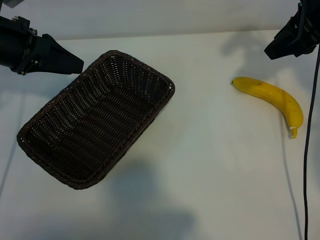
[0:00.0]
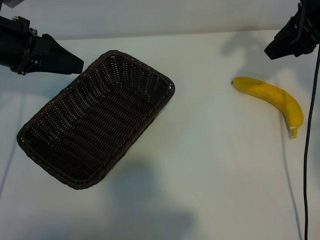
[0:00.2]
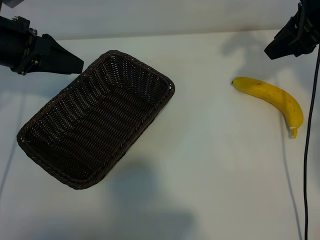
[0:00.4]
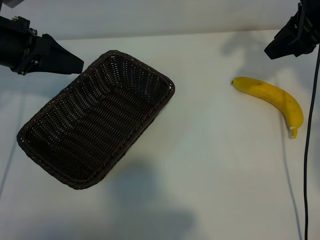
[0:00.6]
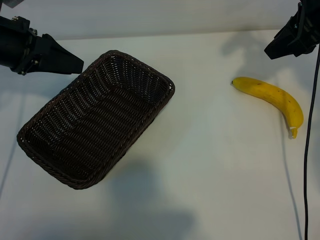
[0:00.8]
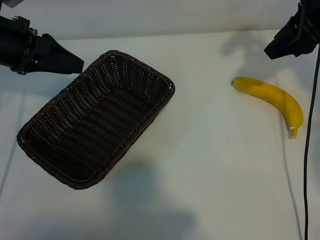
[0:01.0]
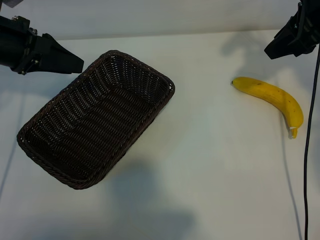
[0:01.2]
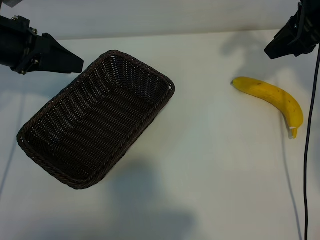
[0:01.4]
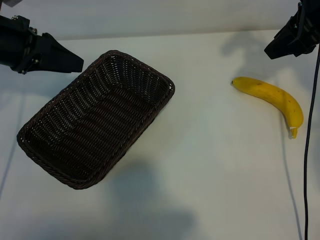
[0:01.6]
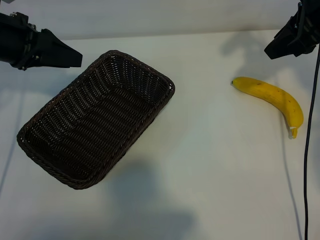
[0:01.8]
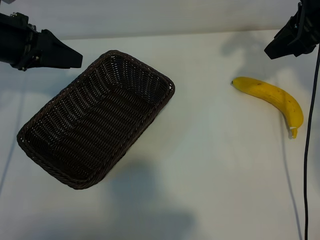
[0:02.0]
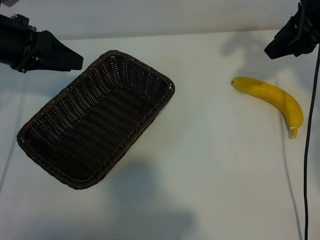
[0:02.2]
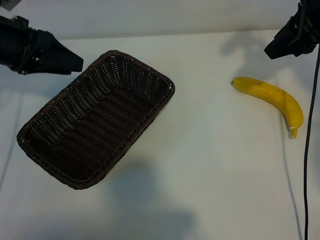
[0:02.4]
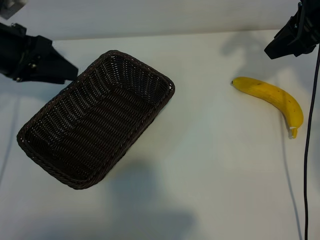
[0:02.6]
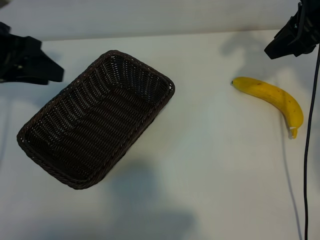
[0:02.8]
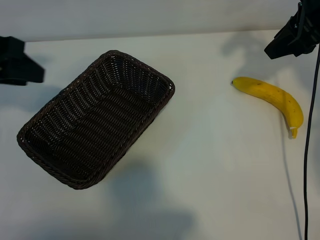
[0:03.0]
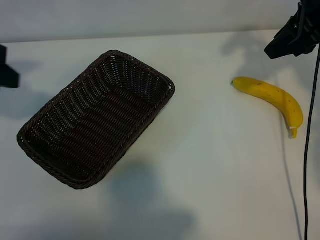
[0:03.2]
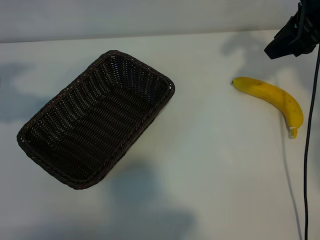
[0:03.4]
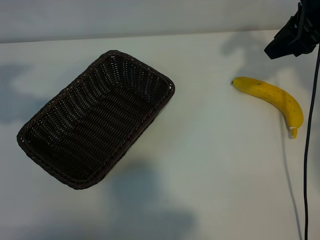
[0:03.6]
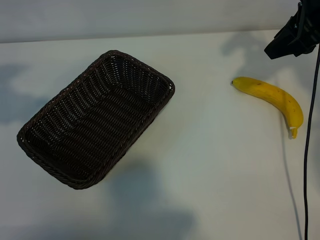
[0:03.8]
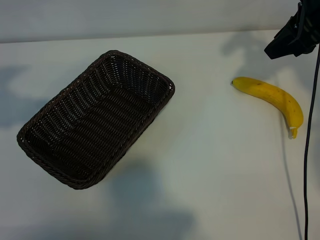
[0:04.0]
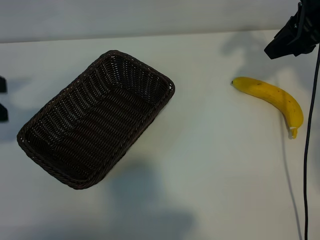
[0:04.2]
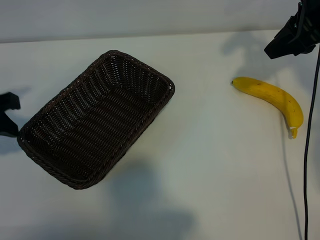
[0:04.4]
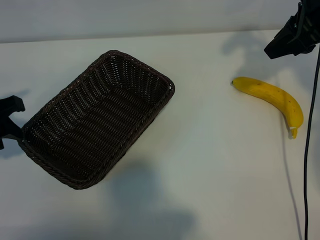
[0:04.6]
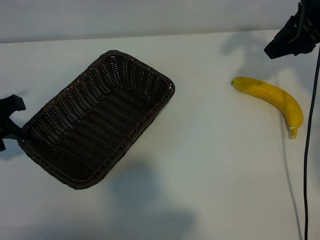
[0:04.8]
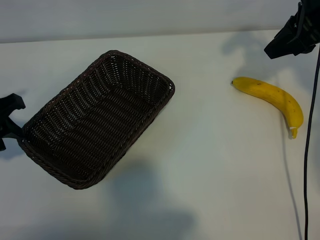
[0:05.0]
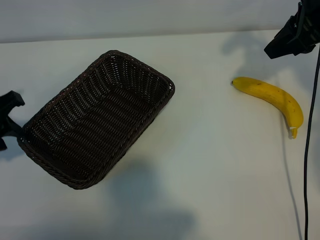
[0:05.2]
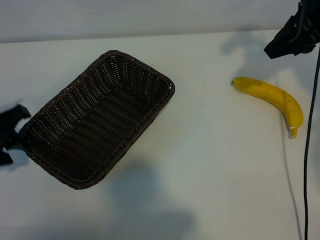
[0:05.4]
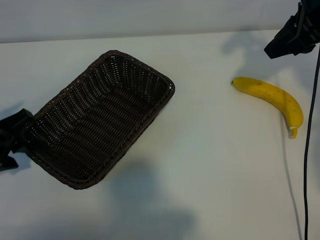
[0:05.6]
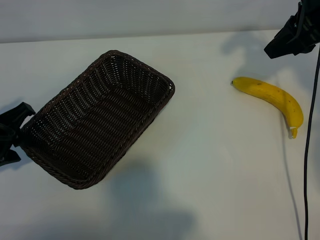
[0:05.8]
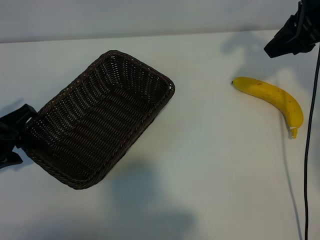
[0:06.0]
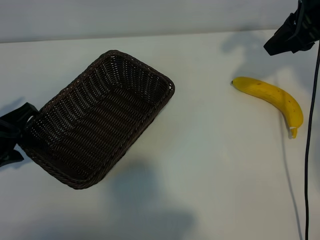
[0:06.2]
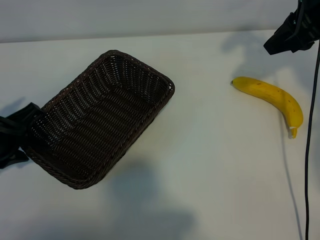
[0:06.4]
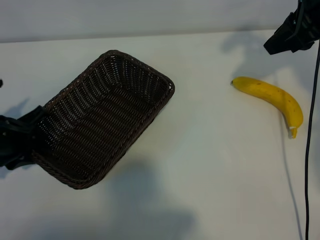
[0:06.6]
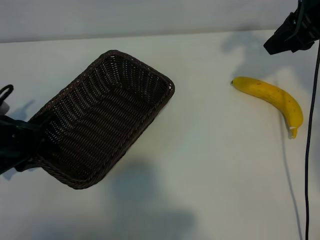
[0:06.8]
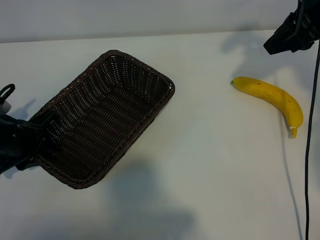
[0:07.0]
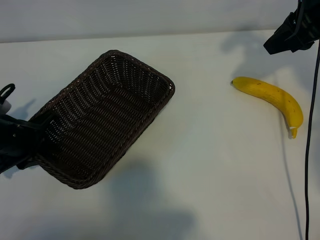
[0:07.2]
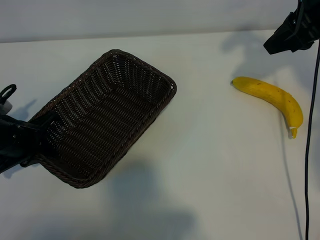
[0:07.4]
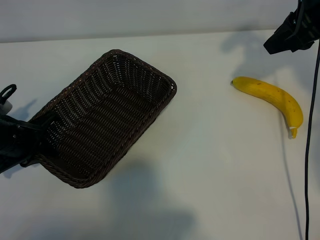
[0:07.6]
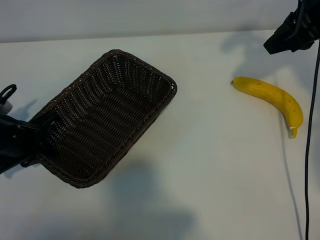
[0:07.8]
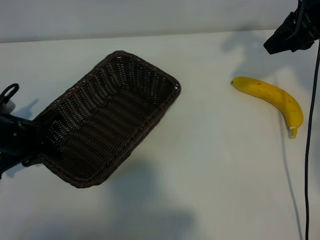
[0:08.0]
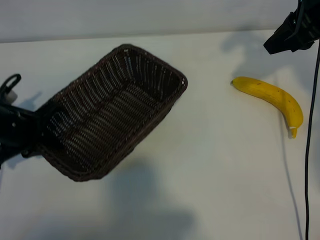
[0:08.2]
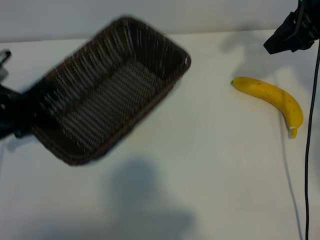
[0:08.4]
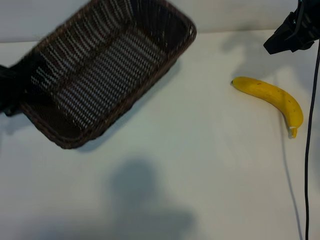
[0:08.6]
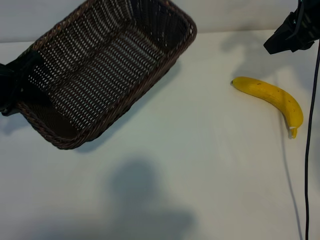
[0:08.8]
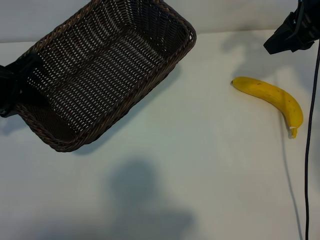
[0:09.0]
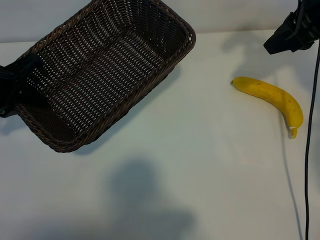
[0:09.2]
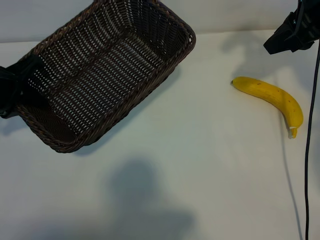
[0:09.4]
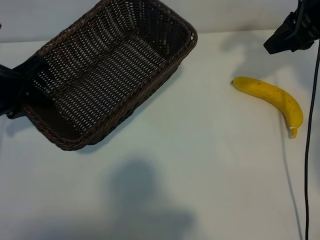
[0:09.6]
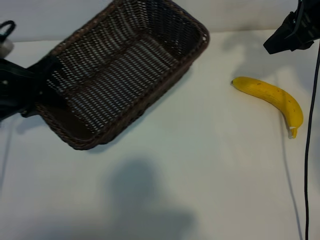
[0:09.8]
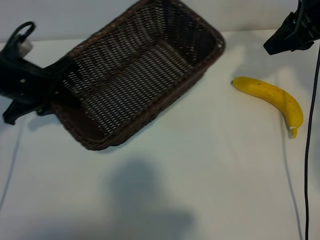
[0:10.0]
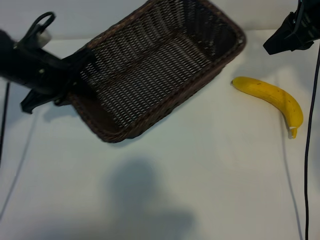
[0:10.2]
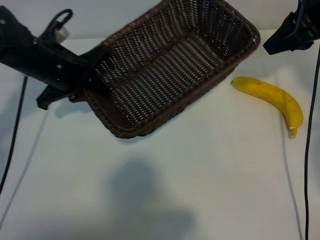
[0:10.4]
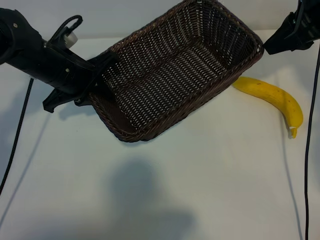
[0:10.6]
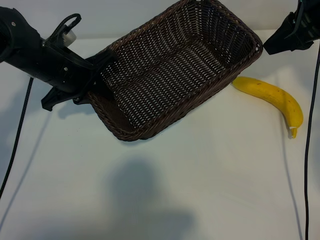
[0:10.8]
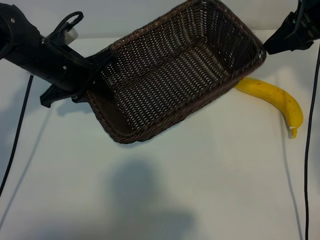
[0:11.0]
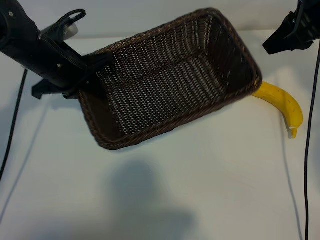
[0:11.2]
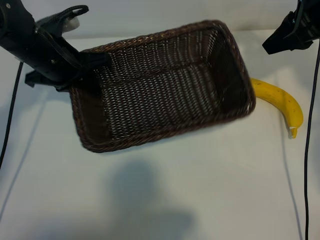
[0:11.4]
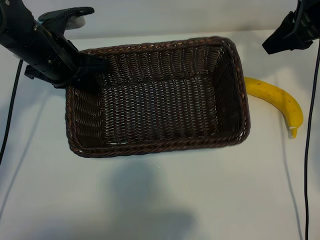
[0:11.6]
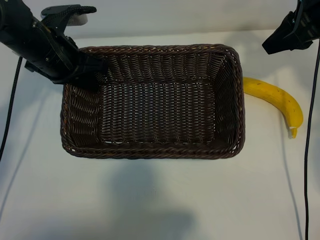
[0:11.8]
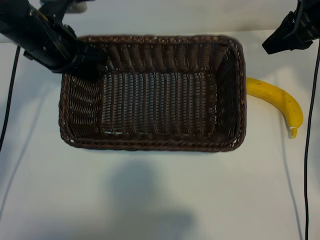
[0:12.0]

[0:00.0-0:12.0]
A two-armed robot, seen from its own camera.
Task of the whole recording: pick up the banana and put it into the basket.
Step, 0:01.4 to 0:07.2: Grasp the basket with the left gripper.

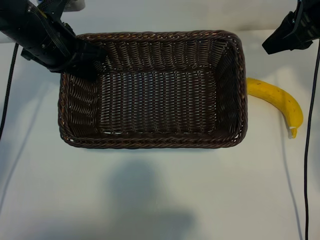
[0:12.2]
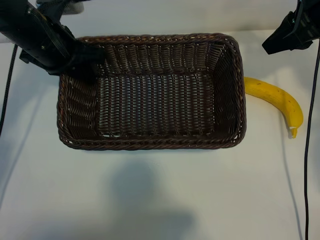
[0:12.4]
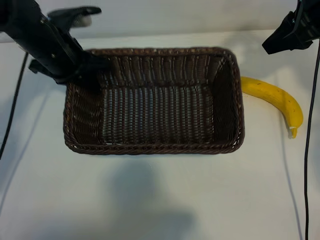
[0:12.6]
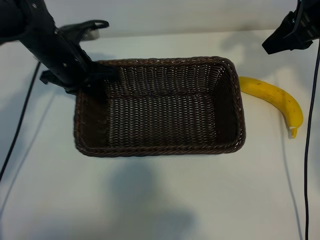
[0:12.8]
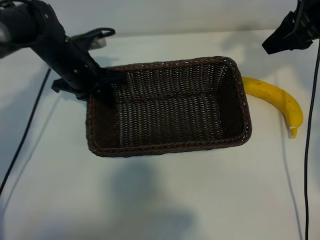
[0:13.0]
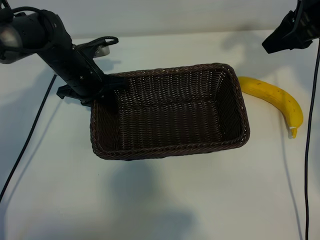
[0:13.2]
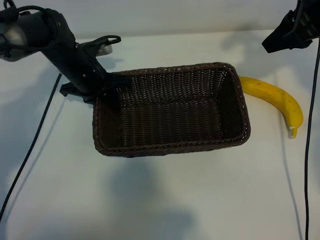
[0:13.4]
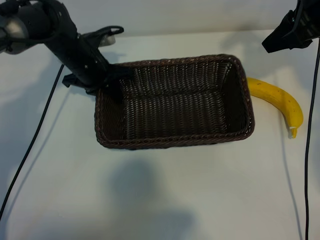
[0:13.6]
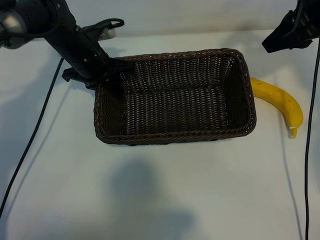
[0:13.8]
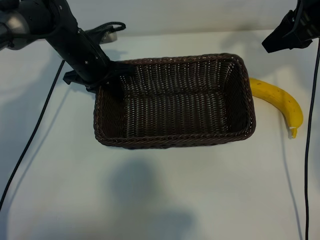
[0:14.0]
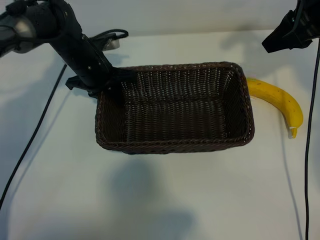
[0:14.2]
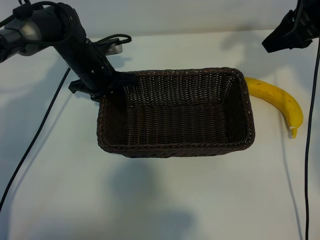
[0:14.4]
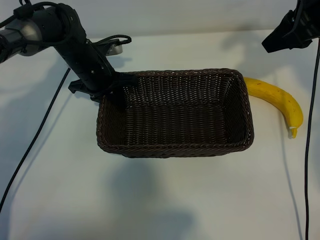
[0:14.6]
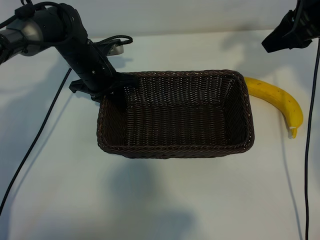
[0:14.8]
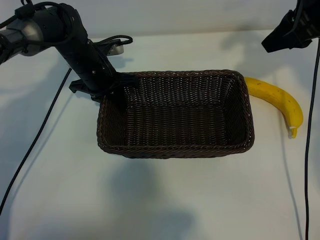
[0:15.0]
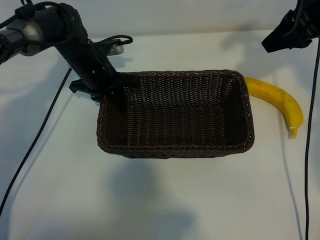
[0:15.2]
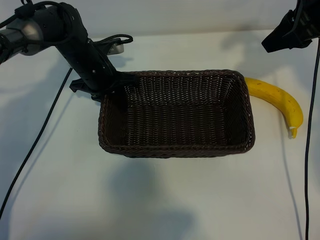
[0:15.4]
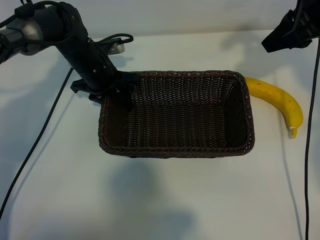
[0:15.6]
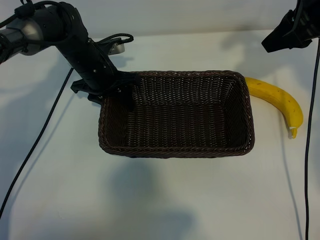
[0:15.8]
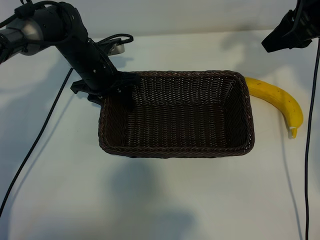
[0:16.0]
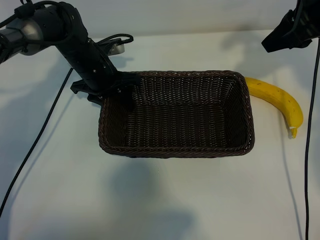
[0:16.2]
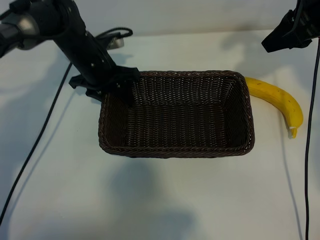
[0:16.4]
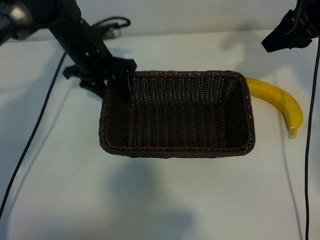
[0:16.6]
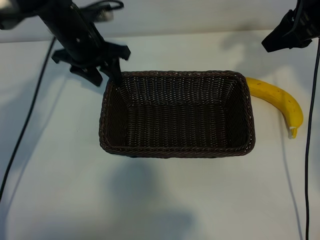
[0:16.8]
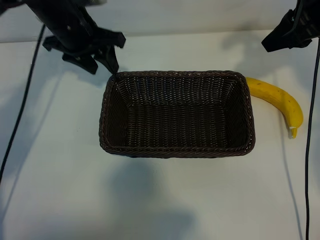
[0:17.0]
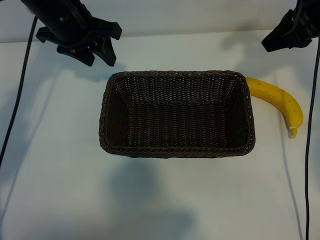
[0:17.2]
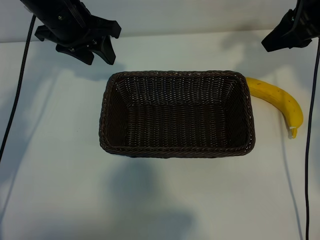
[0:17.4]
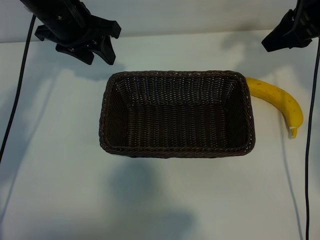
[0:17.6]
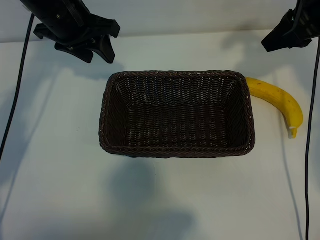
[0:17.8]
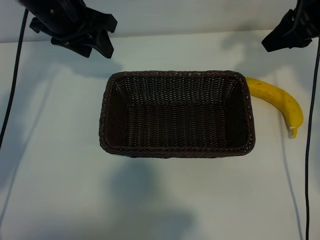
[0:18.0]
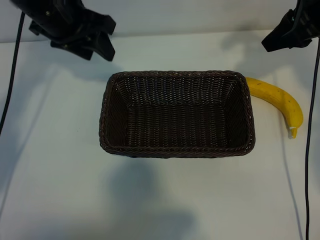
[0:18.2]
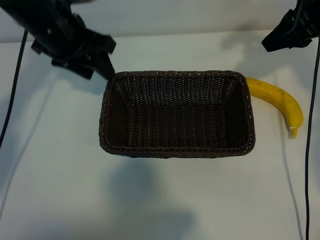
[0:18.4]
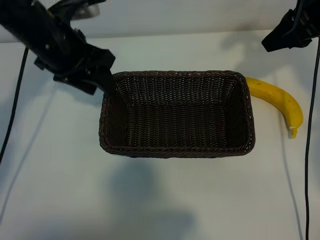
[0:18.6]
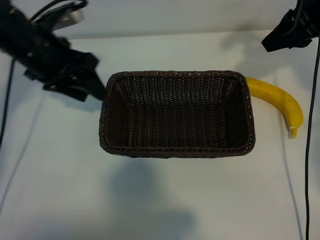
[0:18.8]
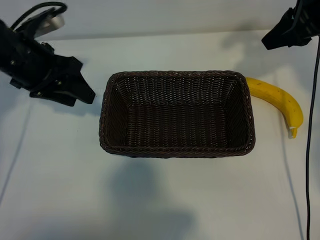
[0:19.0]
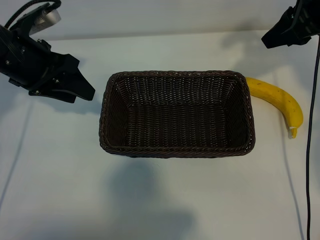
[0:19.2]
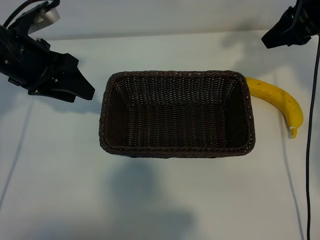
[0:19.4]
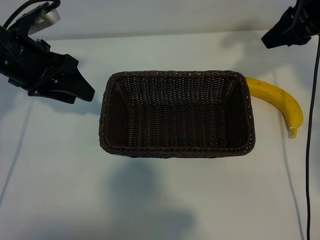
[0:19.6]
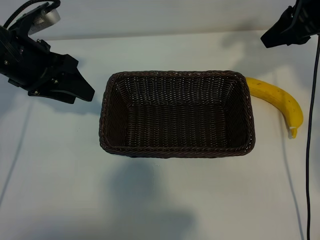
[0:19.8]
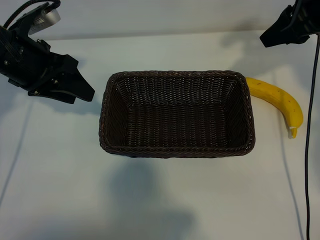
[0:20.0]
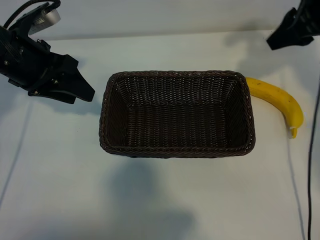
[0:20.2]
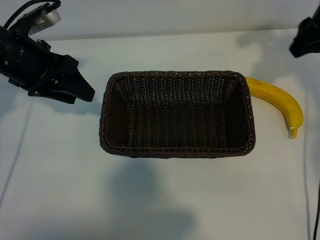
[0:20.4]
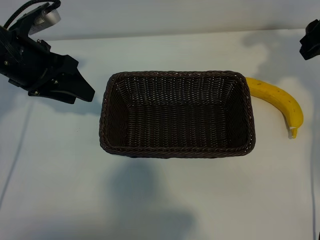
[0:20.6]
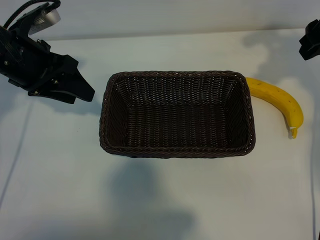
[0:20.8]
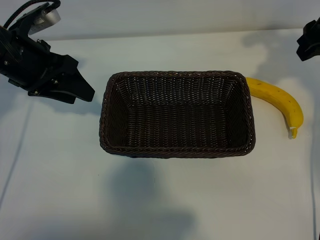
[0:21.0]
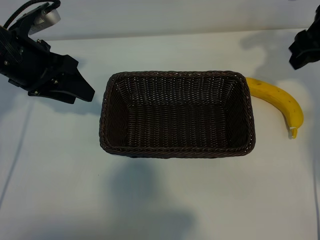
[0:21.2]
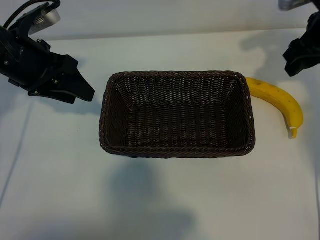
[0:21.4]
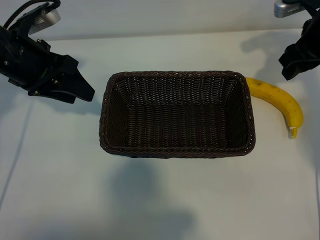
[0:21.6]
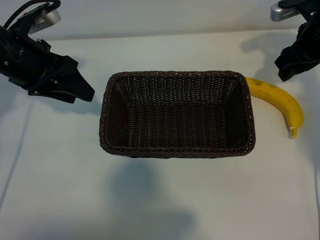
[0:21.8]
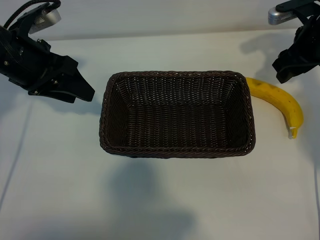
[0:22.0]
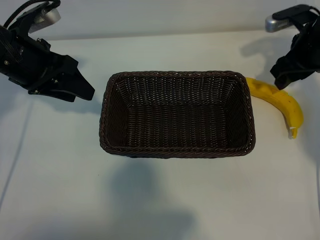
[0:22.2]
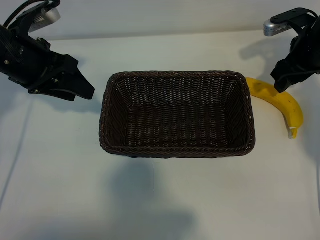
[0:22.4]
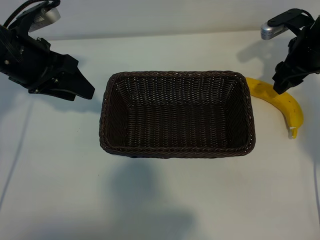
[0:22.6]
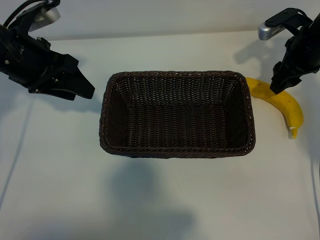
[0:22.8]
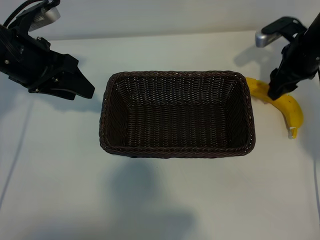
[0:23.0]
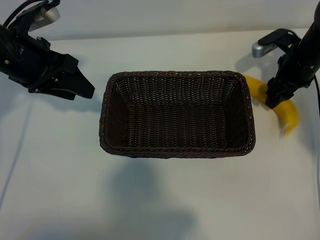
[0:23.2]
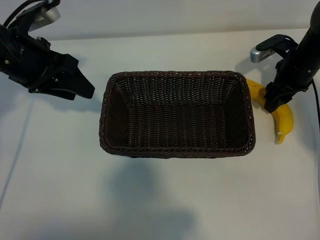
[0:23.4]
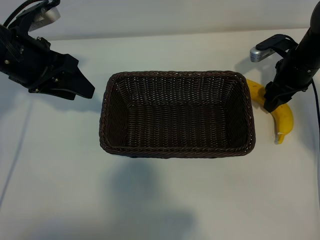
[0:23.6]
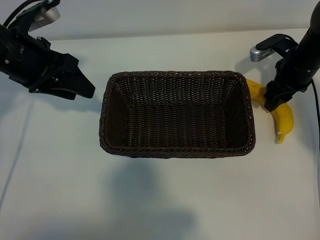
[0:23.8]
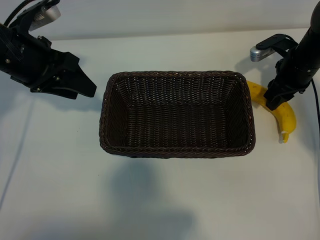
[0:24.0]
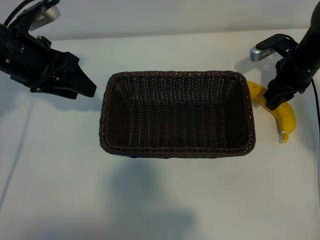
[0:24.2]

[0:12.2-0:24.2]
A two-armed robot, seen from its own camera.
Task of the whole recording: pick up the banana and put it into the basket.
Step, 0:12.2 to 0:16.6: Place the basket in the center of the table with the left gripper.
Step, 0:16.8 to 0:24.0: Grasp the banana with right gripper.
